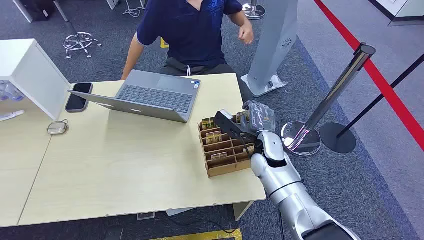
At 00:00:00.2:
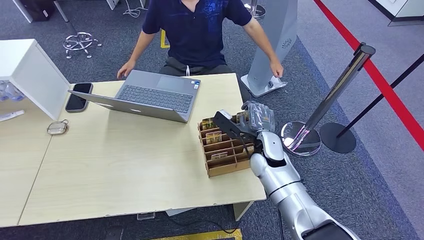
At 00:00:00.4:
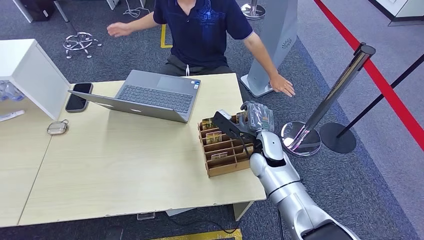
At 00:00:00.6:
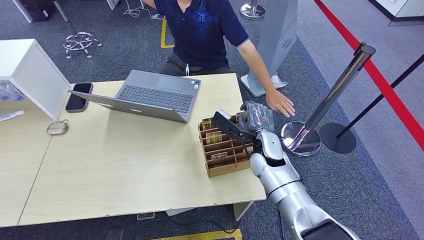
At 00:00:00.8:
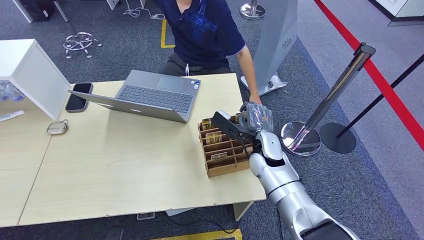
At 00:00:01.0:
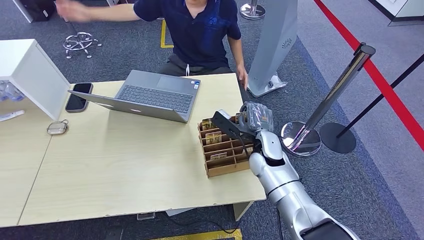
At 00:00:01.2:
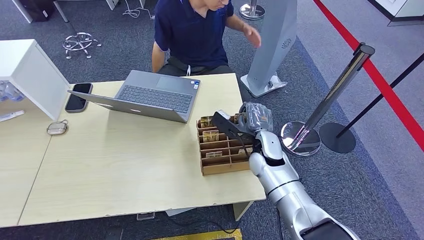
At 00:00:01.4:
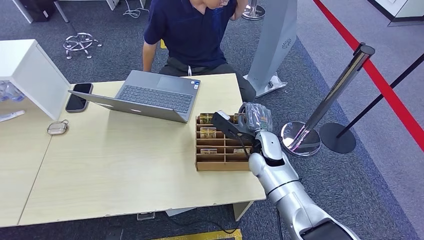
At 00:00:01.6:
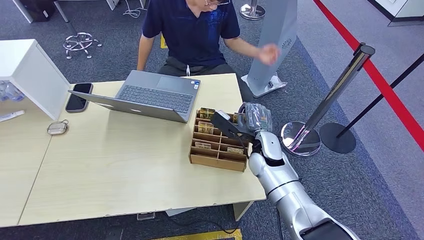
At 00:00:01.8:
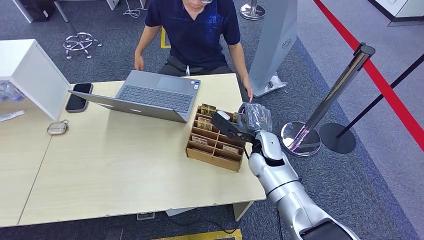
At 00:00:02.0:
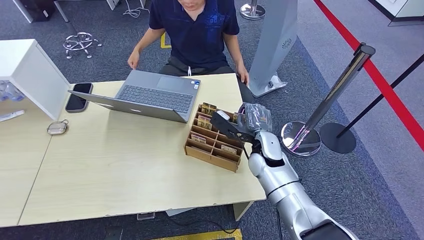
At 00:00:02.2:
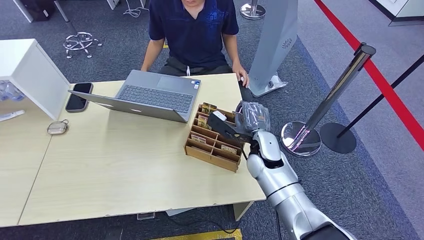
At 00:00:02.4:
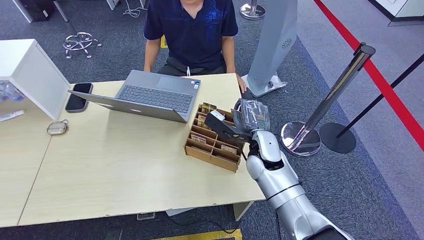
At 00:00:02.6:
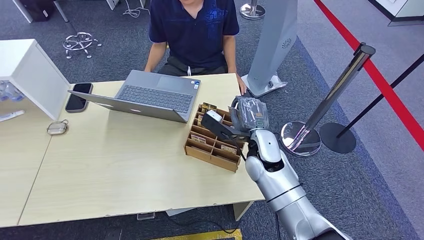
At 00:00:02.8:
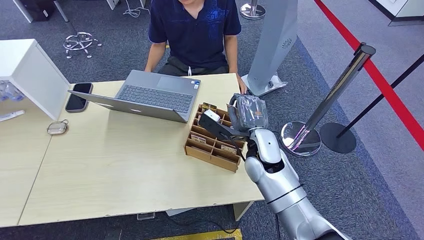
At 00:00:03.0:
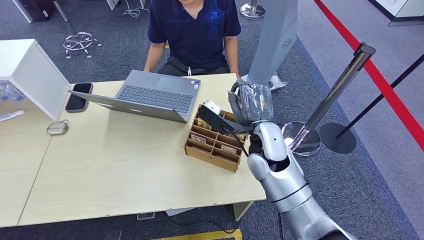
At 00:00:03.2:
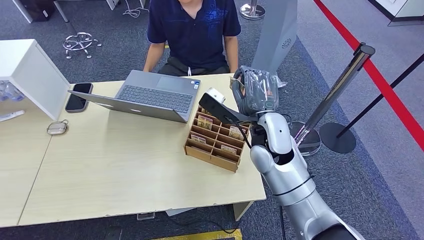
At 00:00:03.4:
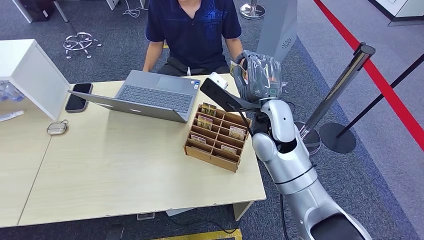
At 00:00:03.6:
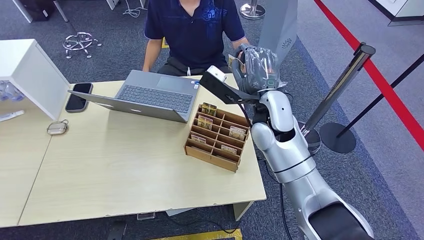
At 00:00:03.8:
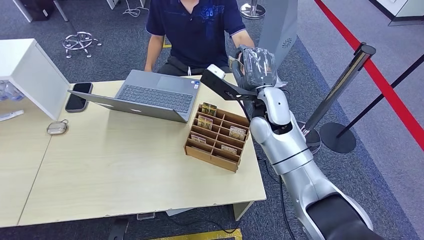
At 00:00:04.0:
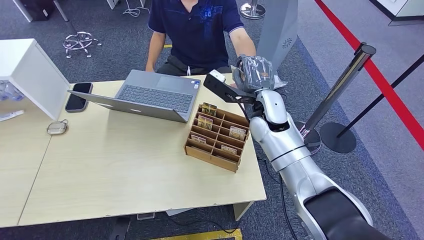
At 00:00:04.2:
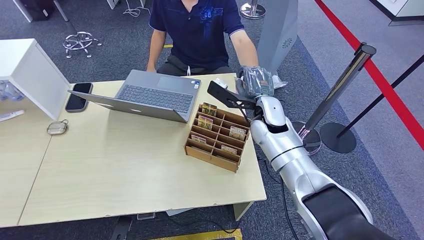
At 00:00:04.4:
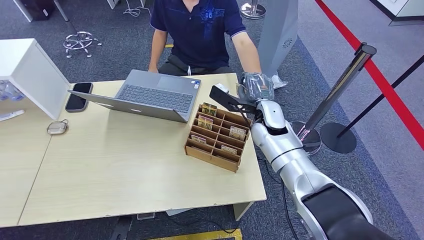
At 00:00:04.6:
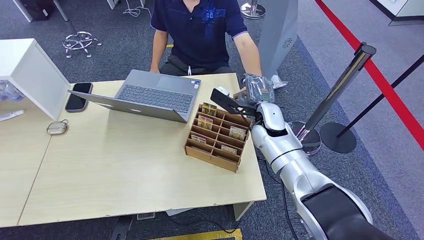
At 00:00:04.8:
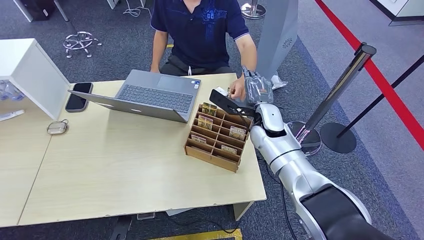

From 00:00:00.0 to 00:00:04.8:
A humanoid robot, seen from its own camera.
Step, from 00:00:00.0 to 00:00:03.2: Pick up the room card from the card holder.
Step, from 00:00:04.4 to 00:00:04.8: Hand the room card to the target.
From 00:00:01.6 to 00:00:03.2: The right hand goes about 10 cm upward.
From 00:00:03.2 to 00:00:04.8: The right hand moves downward and forward, about 10 cm.

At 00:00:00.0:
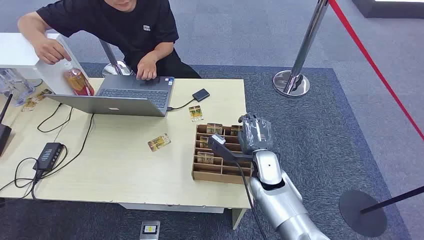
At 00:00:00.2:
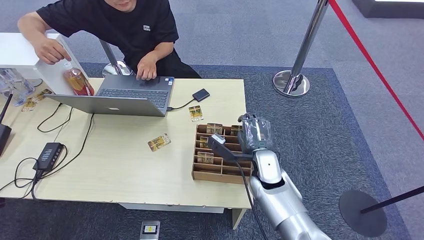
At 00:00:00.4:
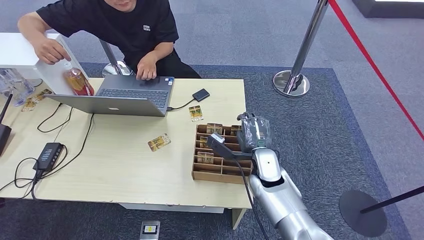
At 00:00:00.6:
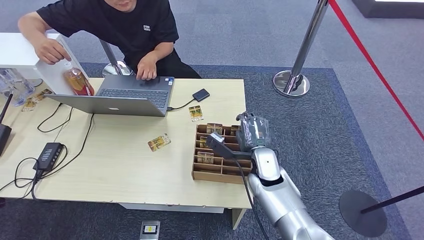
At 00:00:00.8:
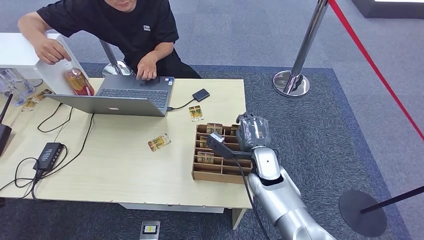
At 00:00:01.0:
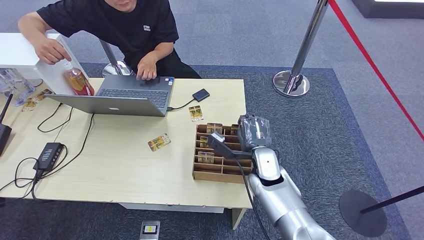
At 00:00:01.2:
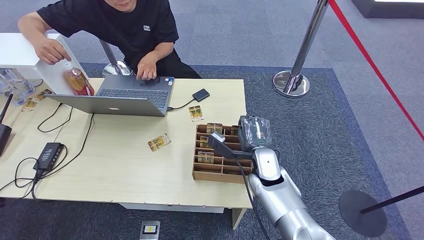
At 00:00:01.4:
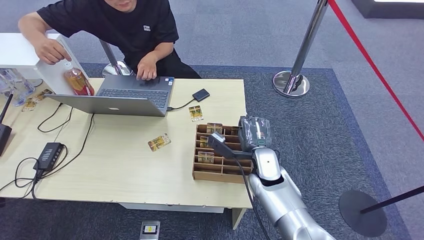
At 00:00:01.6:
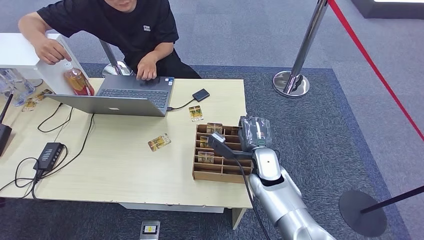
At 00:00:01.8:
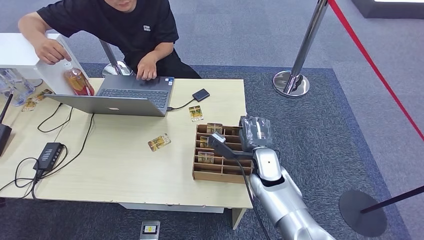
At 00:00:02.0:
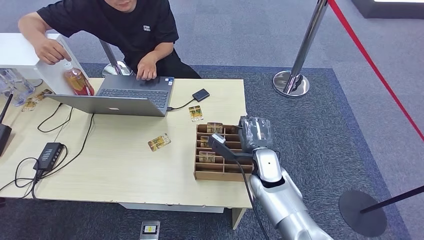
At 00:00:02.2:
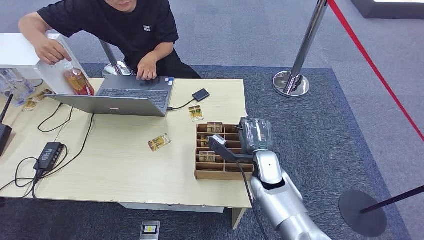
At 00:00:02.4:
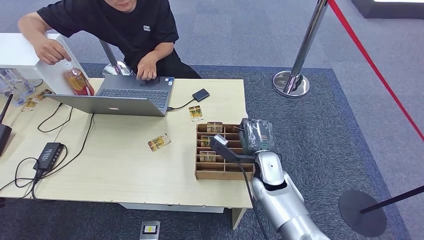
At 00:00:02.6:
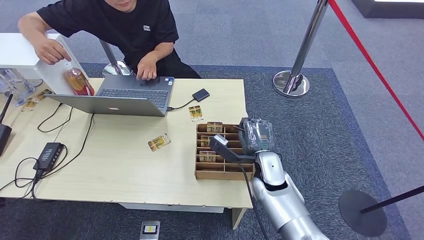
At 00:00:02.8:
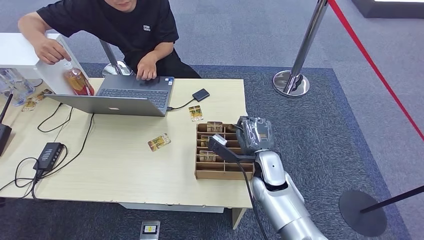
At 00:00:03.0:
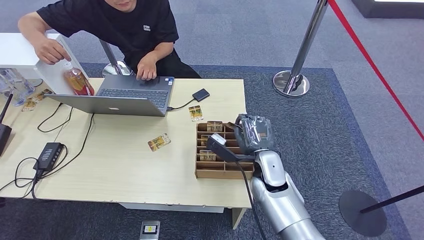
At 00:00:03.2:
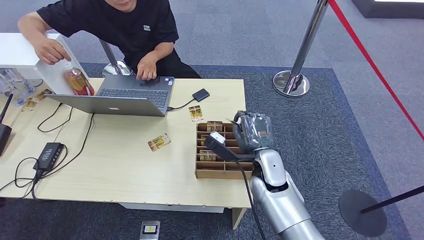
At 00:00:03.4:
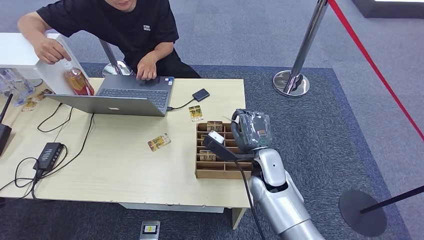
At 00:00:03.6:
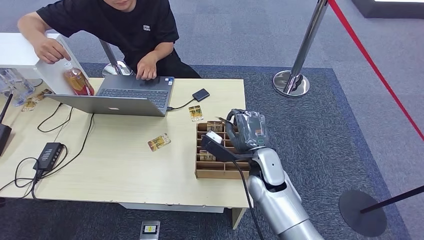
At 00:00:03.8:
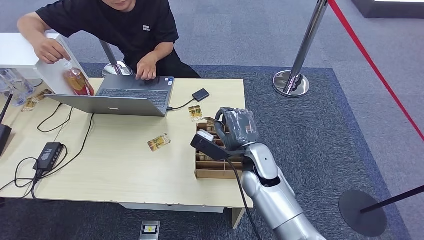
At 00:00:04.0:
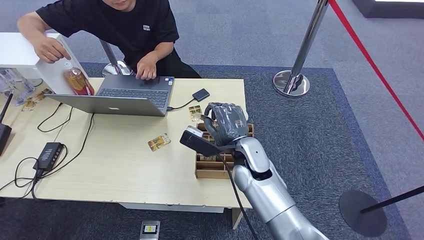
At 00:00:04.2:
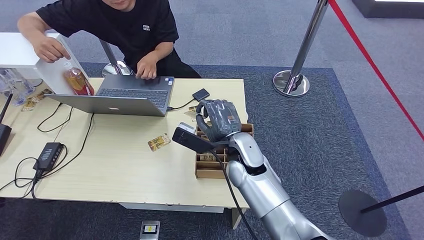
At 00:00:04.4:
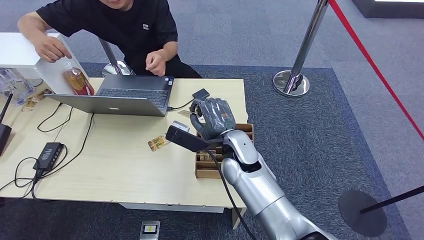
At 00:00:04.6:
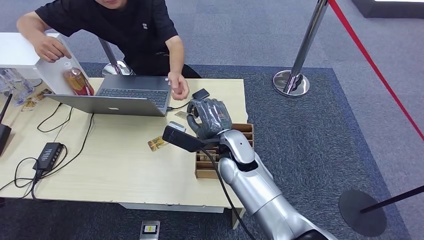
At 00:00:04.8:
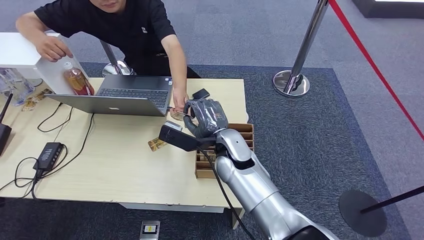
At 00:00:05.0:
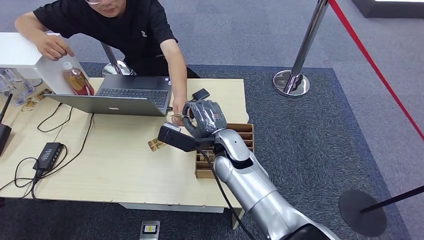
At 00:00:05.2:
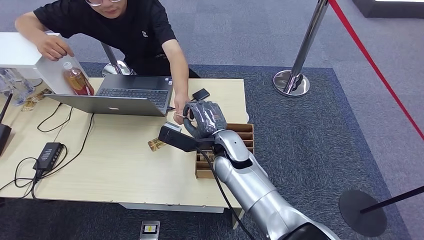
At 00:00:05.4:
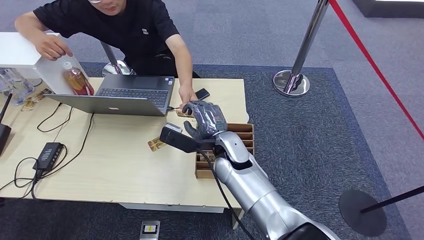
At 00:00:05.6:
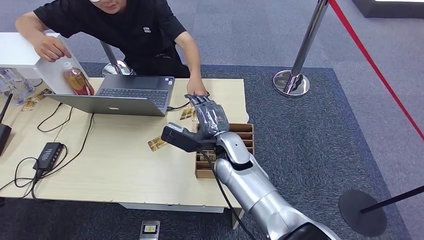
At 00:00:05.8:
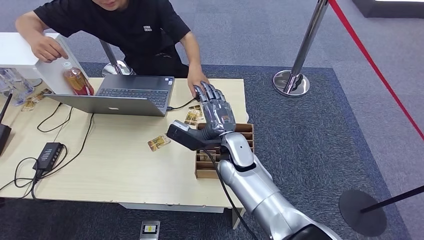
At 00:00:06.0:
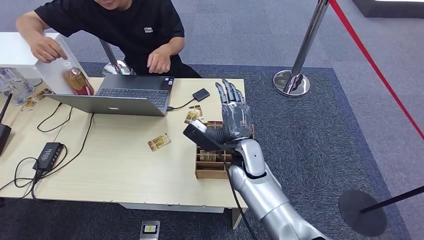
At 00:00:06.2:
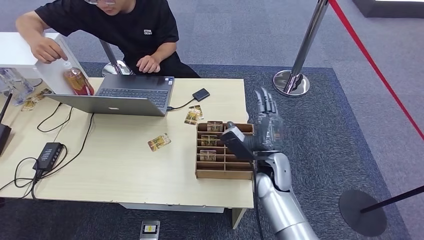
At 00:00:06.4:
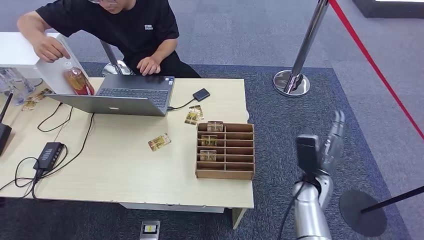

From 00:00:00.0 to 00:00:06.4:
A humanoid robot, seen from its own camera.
Step, from 00:00:00.0 to 00:00:02.8: Pick up the room card from the card holder.
Step, from 00:00:03.0 to 00:00:06.2: Hand the room card to the target.
From 00:00:01.6 to 00:00:03.2: The hands move only a little.
From 00:00:03.2 to 00:00:04.8: The right hand goes roughly 10 cm to the left and upward.
From 00:00:04.8 to 00:00:06.4: The right hand travels to the right and downward by roughly 25 cm.
